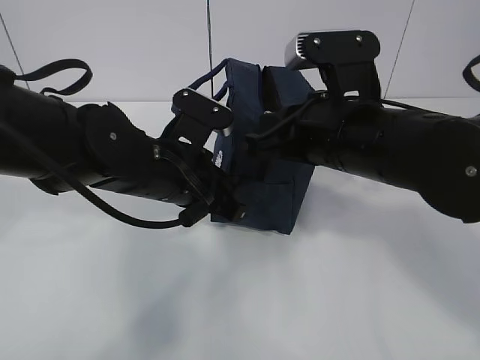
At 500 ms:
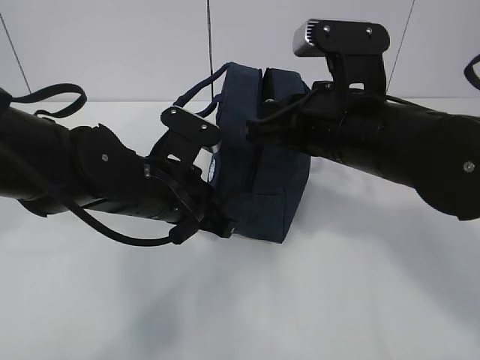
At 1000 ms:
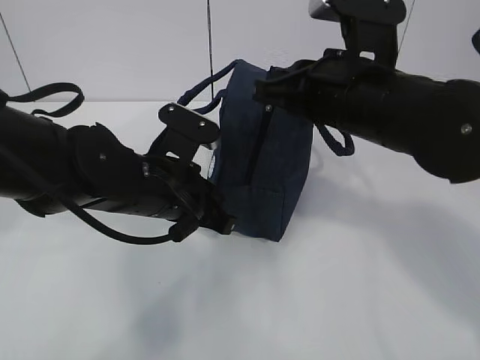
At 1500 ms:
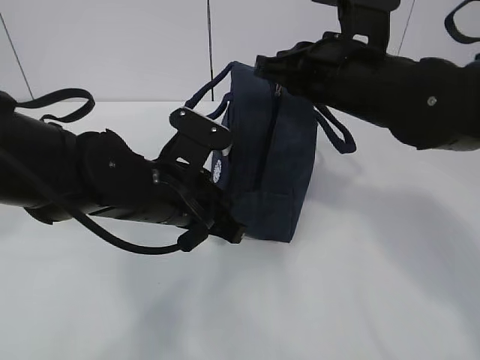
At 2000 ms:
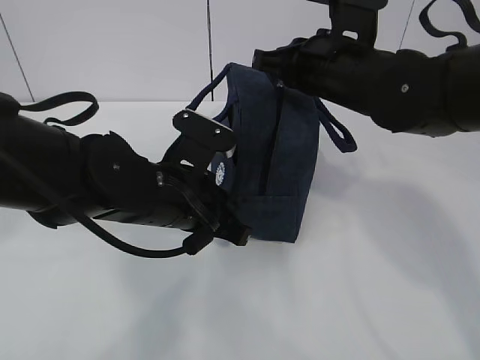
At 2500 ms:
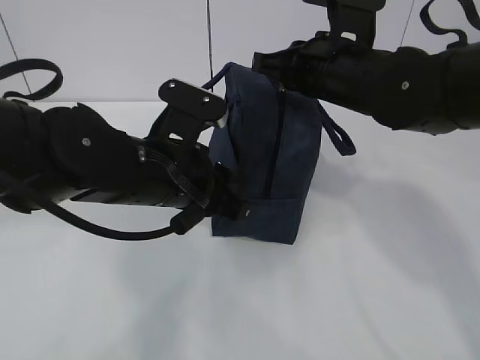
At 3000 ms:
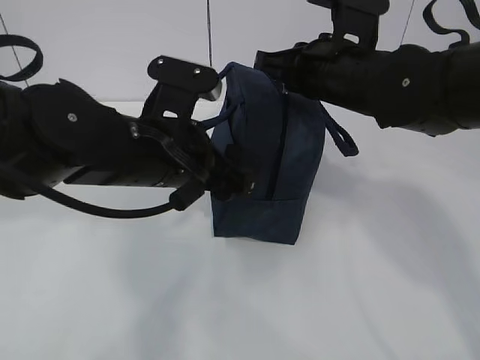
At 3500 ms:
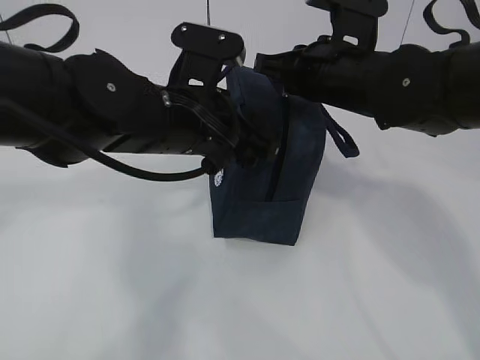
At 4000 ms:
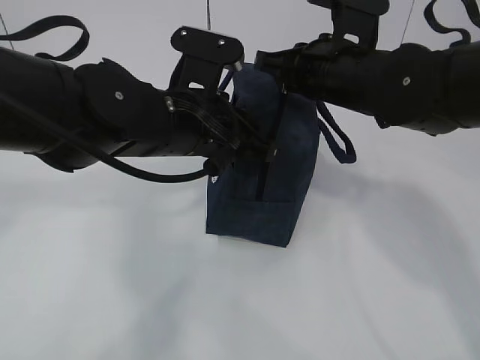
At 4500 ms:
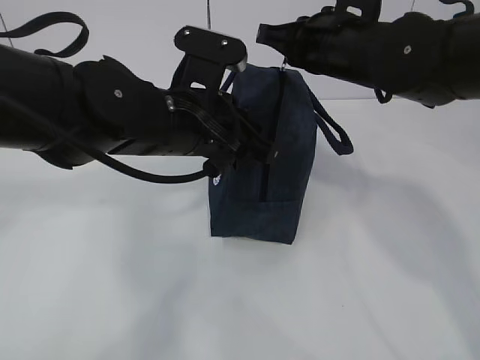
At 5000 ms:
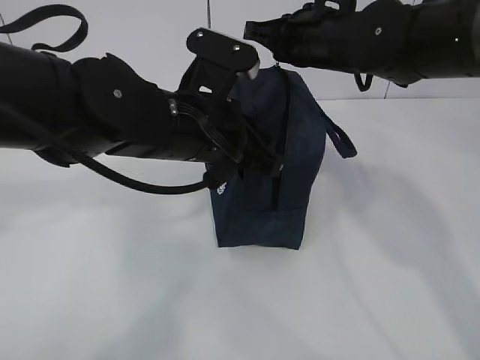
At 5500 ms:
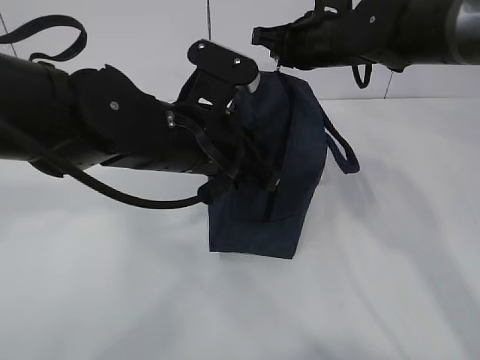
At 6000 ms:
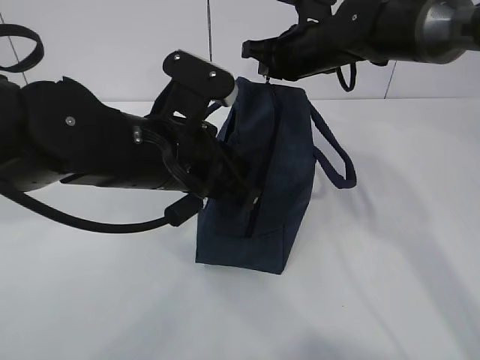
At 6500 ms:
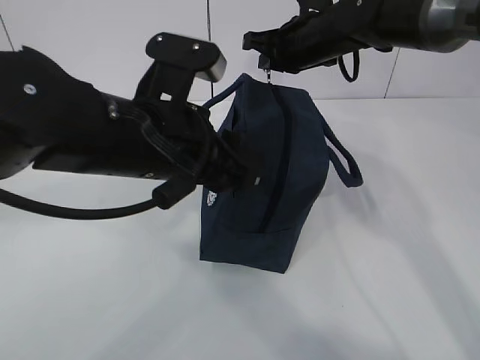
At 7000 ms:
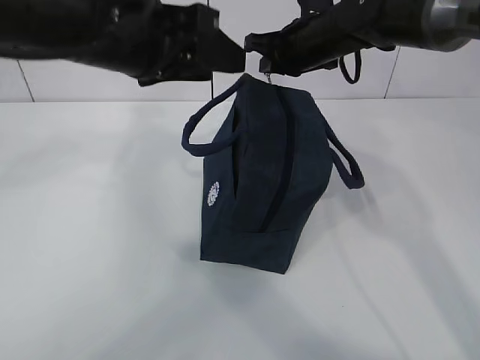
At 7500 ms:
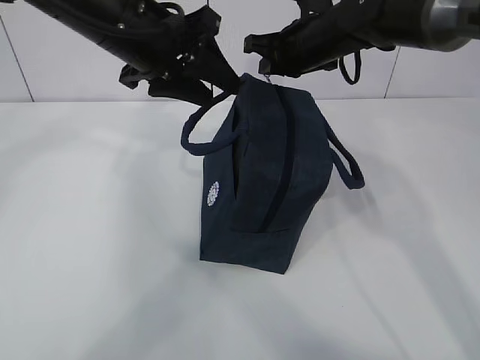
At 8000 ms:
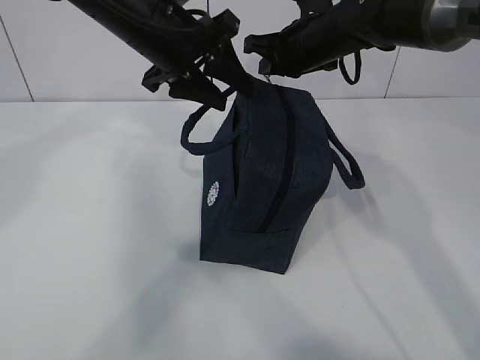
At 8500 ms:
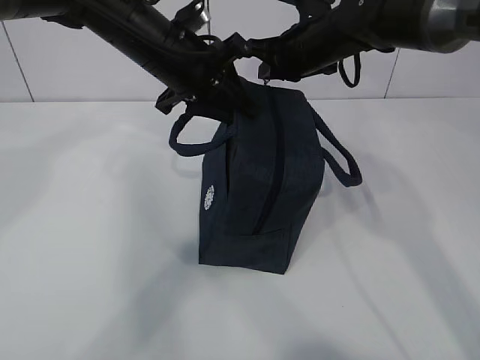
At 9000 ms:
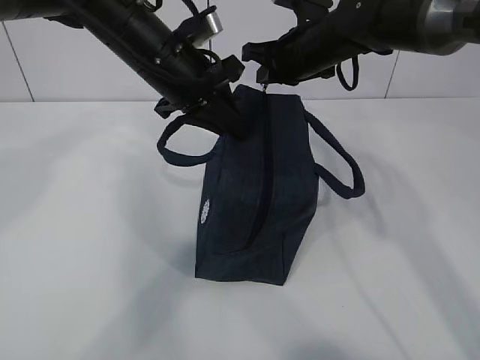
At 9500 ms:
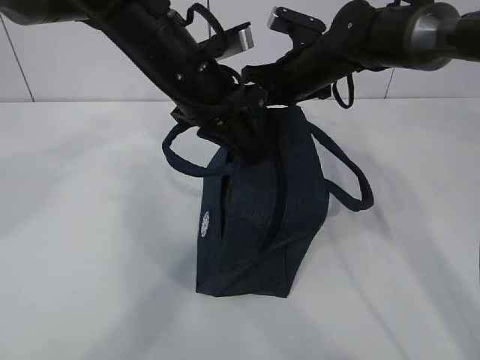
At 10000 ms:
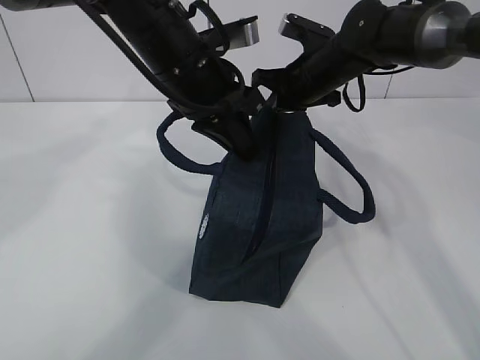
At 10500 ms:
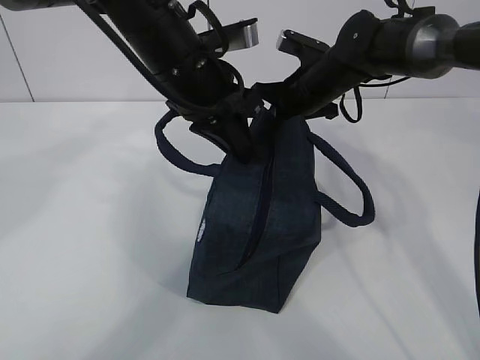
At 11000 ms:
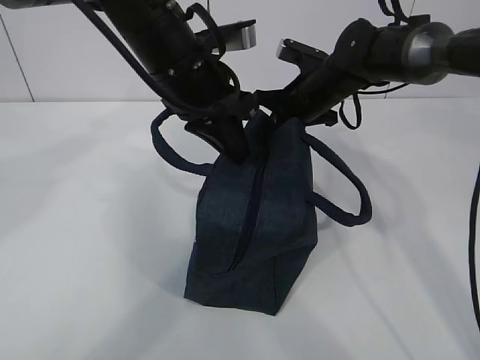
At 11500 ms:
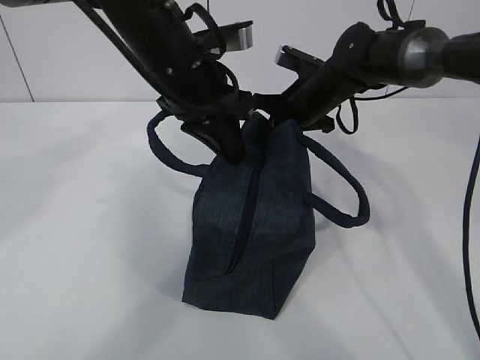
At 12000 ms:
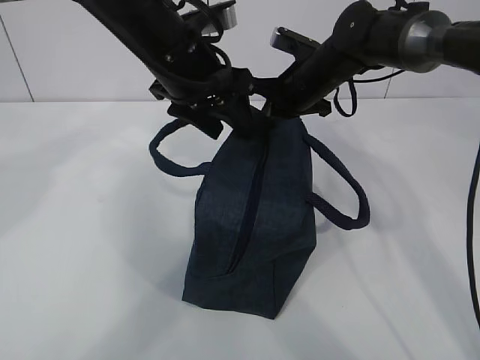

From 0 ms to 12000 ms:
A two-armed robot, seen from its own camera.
From 0 ms to 2000 ms: The right gripper travels forward by some 10 cm.
From 2000 ms to 4000 ms: The left gripper moves upward, approximately 5 cm, and opens, then closes once more.
From 4000 ms to 6000 ms: The right gripper travels forward by about 10 cm.
From 6000 ms to 8000 ms: The left gripper shifts about 15 cm forward and upward, and opens up.
From 8000 ms to 10000 ms: The left gripper ends up roughly 5 cm from where it was, and closes.
From 10000 ms to 12000 ms: The left gripper opens up.

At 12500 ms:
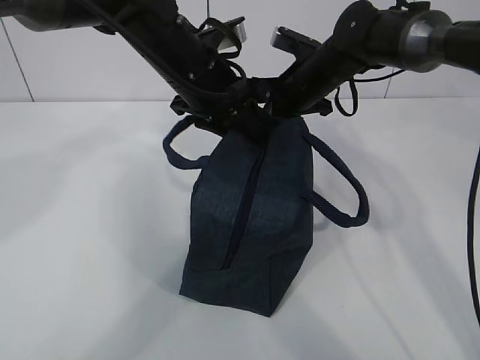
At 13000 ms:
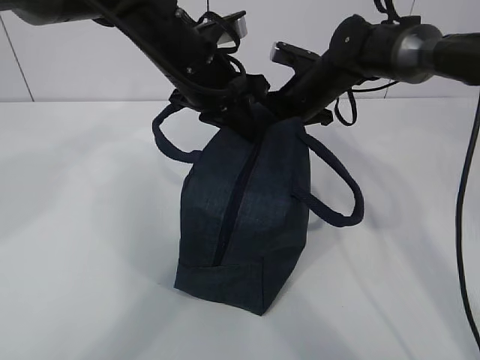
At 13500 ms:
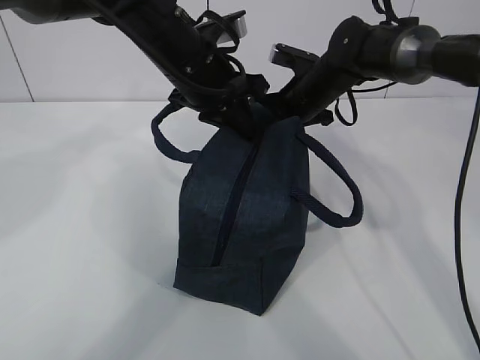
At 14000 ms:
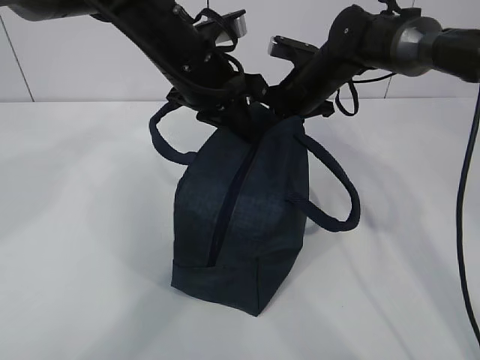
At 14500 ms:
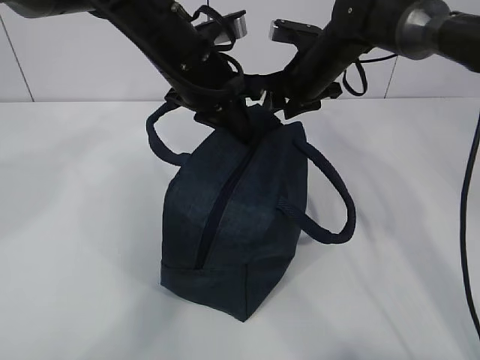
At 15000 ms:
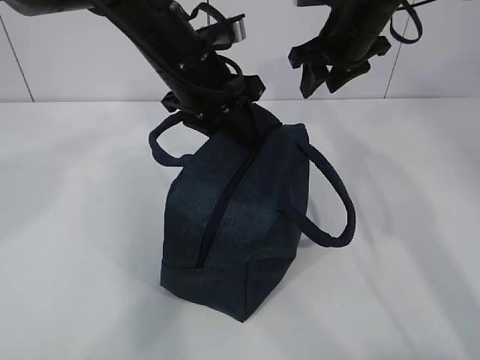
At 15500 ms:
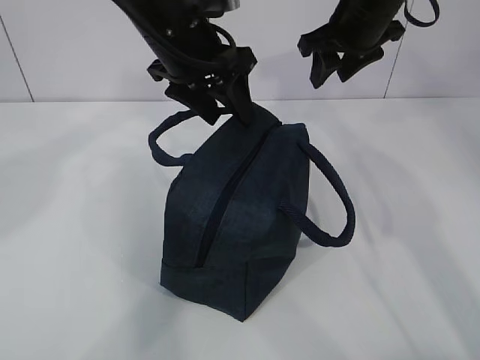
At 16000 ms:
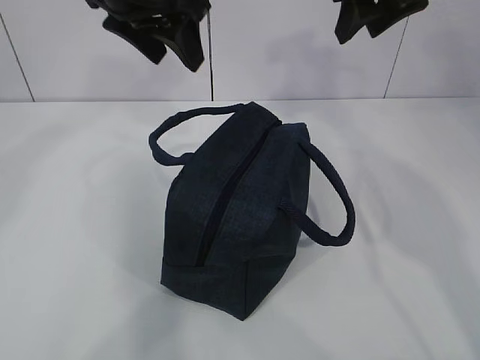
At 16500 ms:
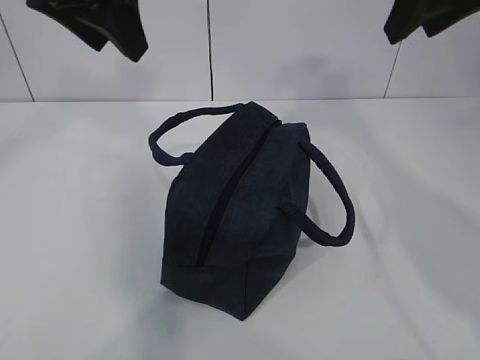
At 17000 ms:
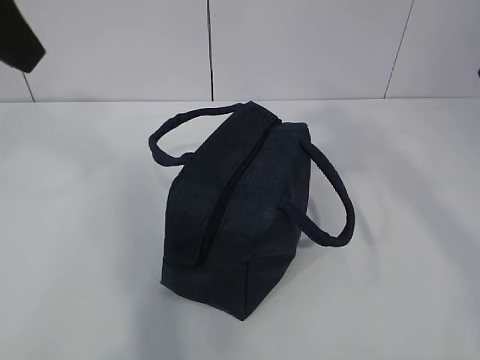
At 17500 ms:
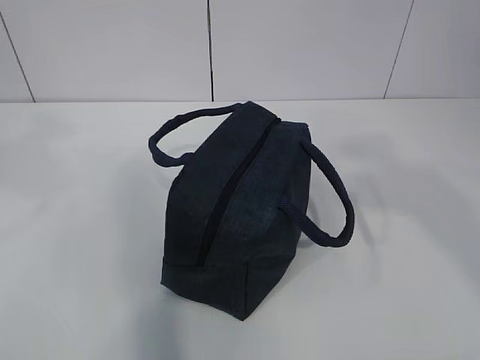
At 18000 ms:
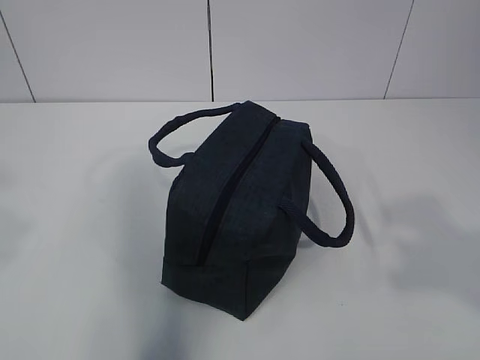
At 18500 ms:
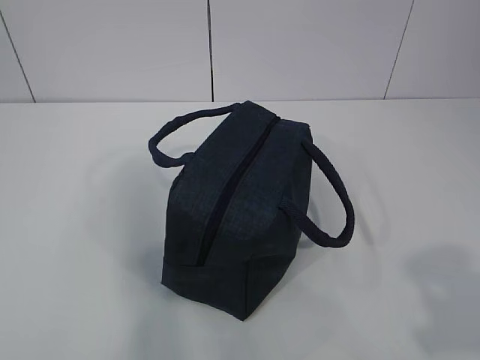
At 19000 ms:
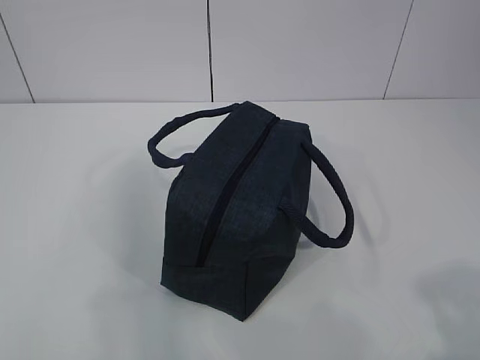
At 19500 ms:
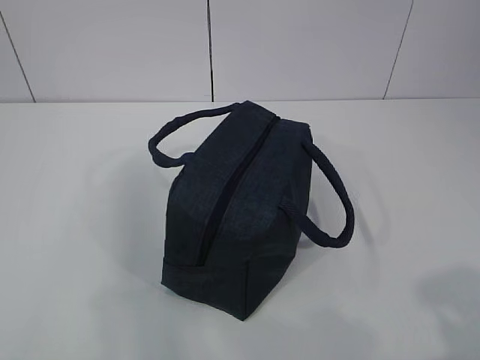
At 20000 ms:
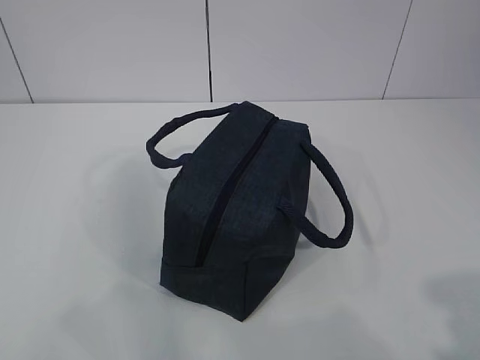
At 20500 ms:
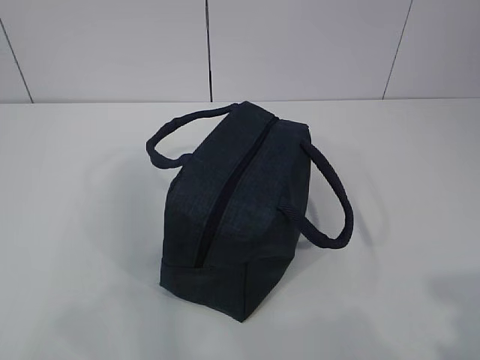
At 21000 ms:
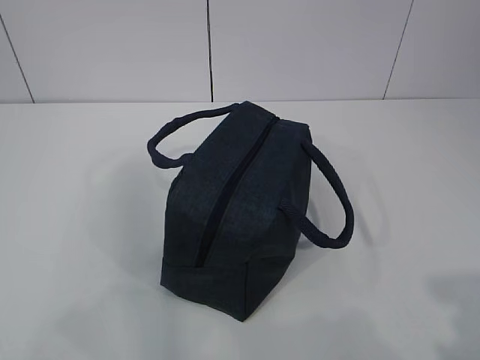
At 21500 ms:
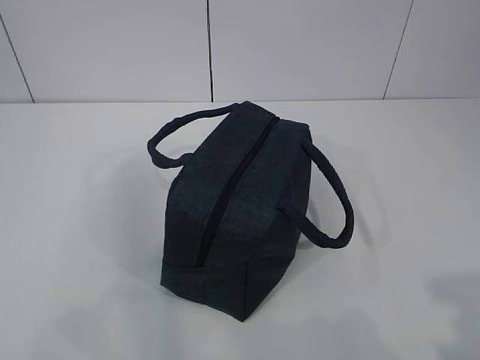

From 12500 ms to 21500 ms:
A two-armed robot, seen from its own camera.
From 12500 ms to 14500 ms: The left gripper closes; the right gripper opens up.
From 14500 ms to 17000 ms: The left gripper travels upward, backward and to the left by approximately 25 cm, and opens. The right gripper moves backward and upward, approximately 35 cm.
From 17000 ms to 19500 ms: The left gripper travels backward, downward and to the left by approximately 30 cm. Meanwhile the right gripper goes roughly 25 cm backward and downward.
